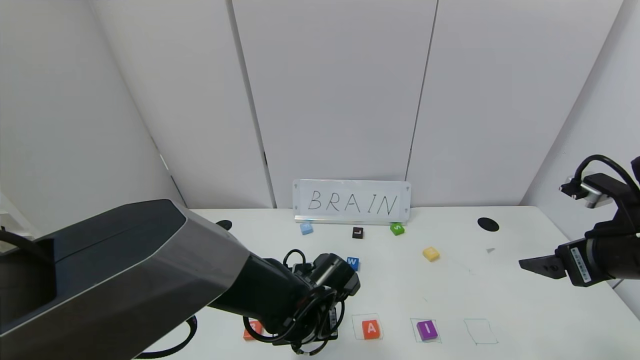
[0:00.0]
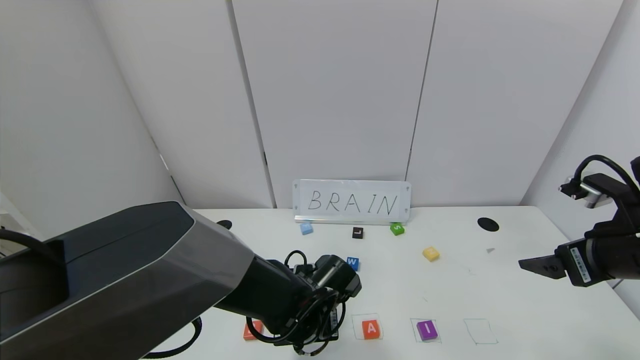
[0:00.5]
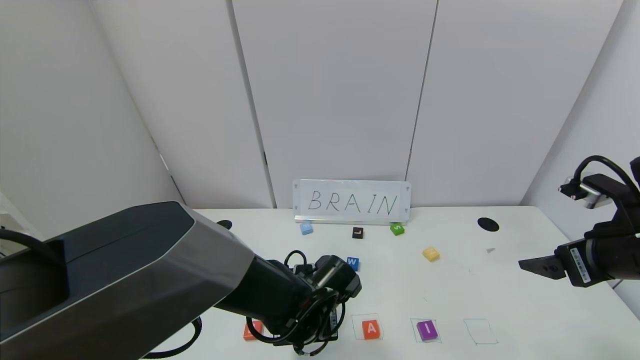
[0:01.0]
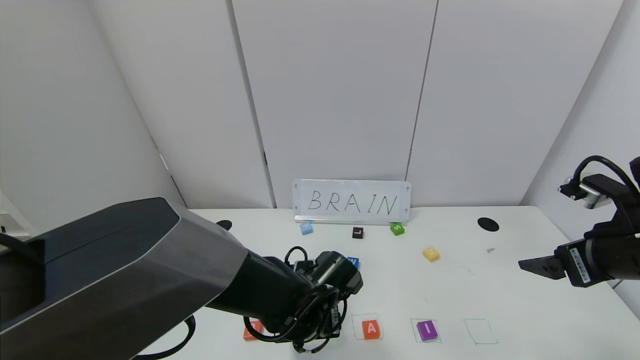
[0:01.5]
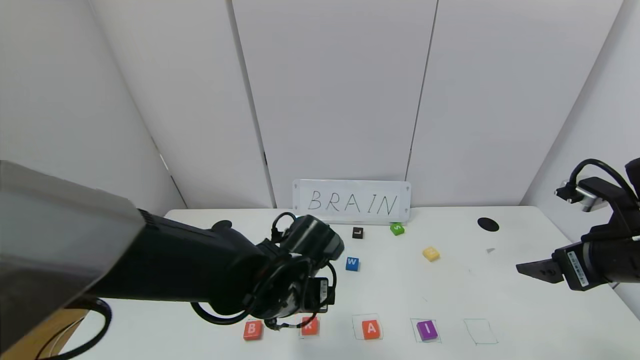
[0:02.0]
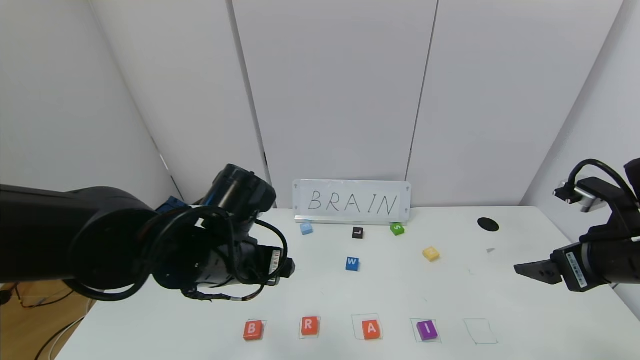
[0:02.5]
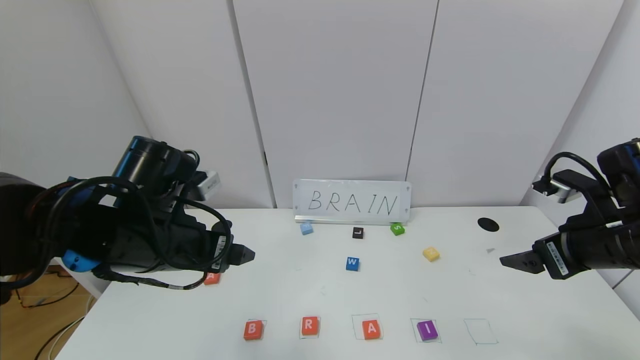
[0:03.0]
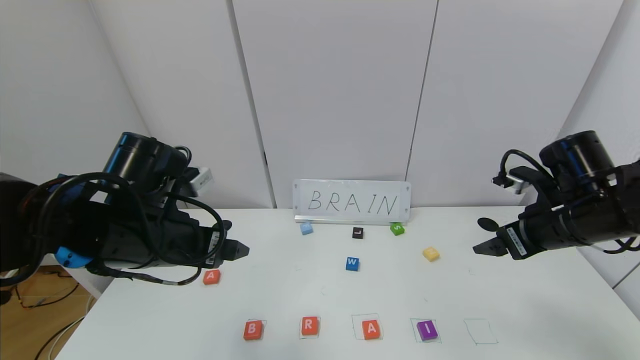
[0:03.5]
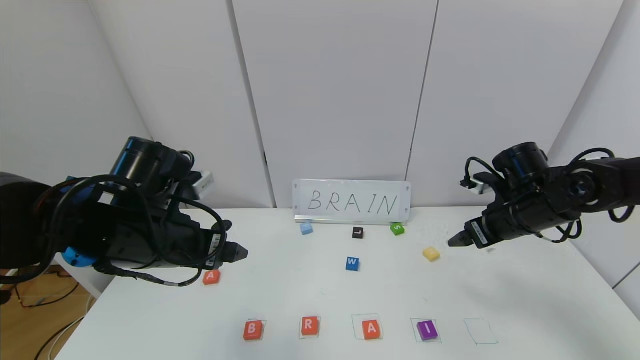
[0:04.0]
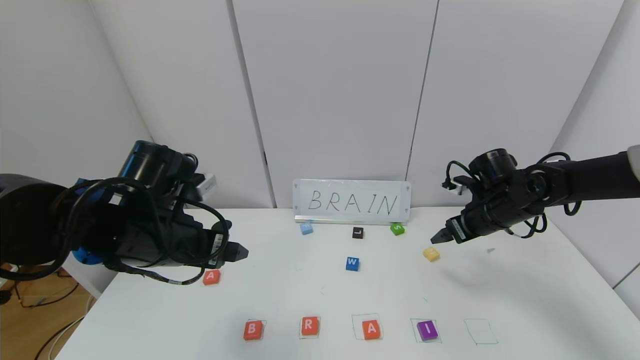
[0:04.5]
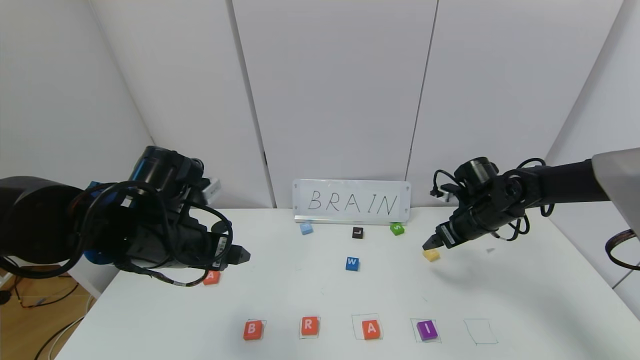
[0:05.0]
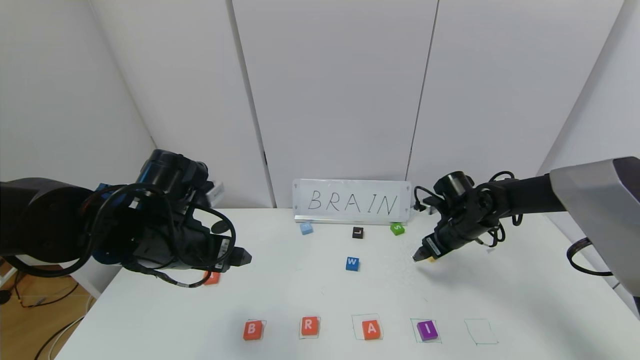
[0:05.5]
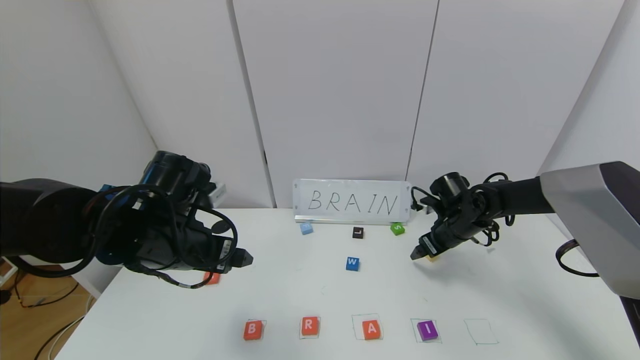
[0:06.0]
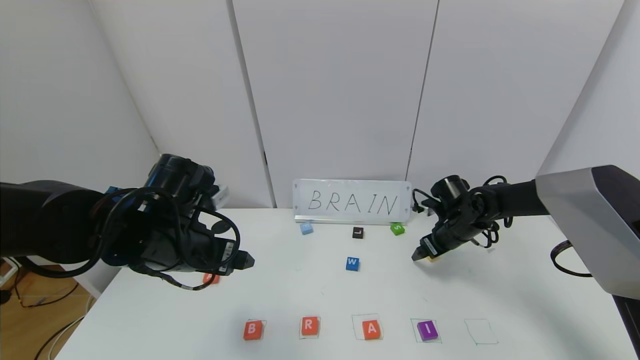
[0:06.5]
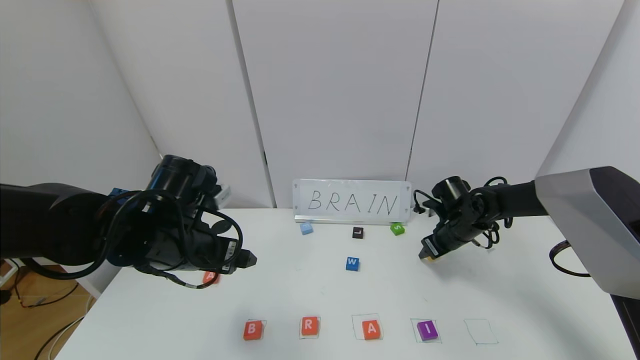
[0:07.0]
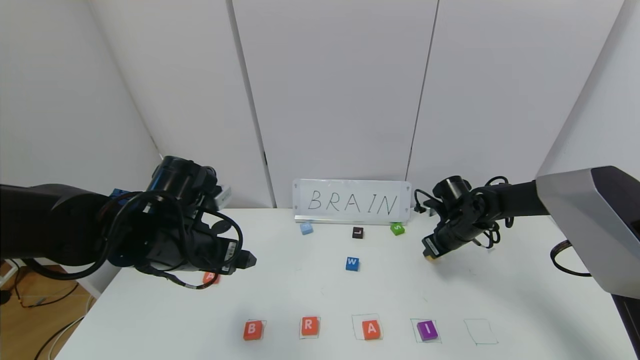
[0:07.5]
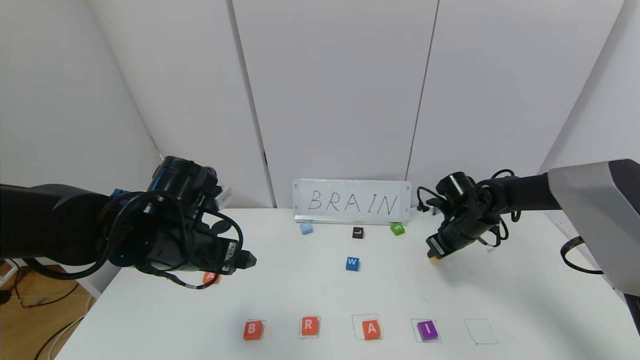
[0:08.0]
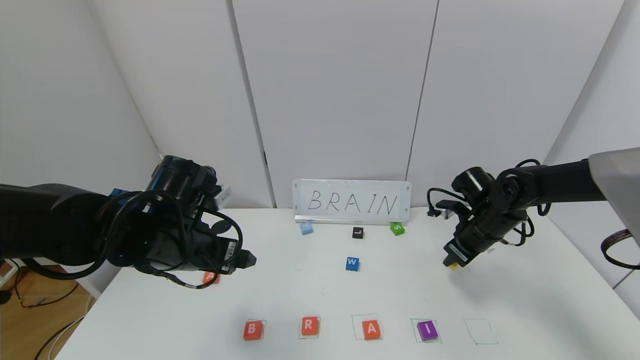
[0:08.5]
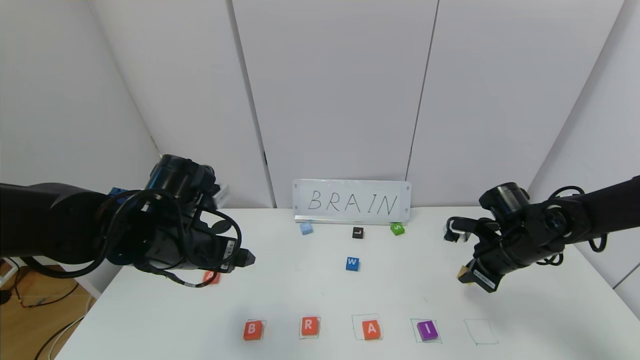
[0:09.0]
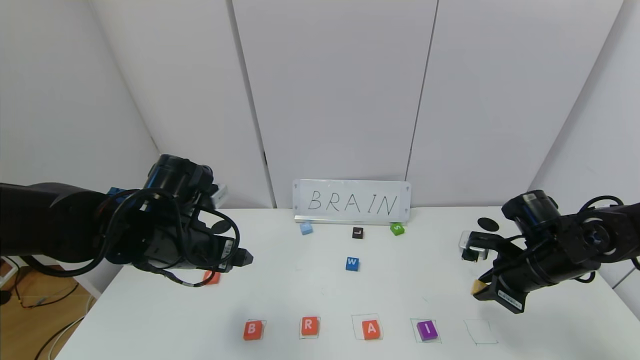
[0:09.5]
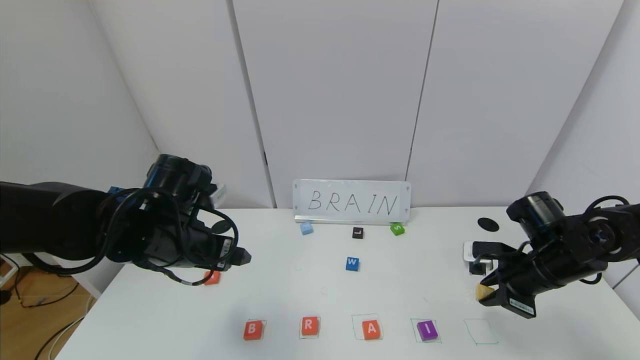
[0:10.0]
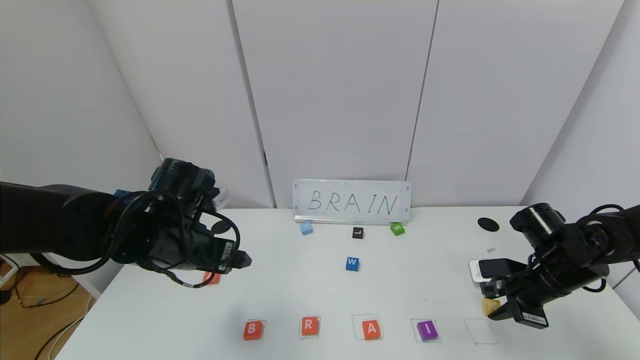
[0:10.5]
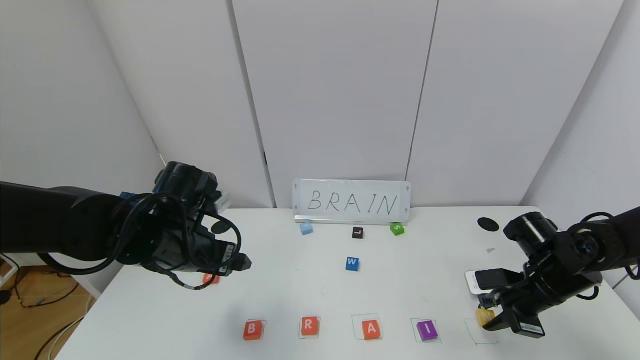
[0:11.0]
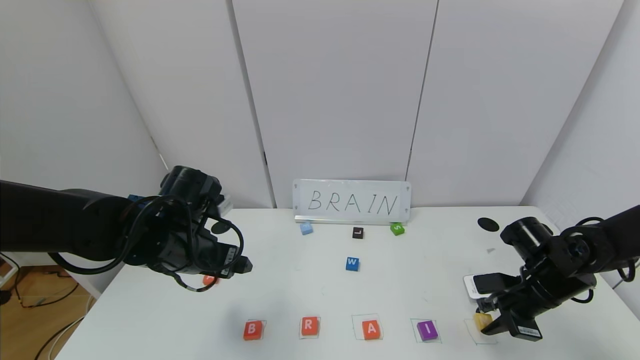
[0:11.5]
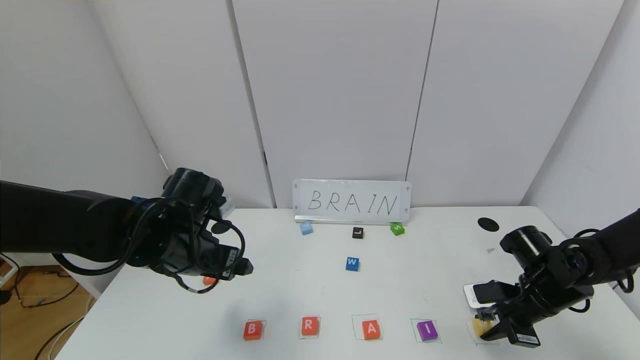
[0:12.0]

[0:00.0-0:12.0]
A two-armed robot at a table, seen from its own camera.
Task of the whole recording: use the gripper to find blocks with the letters b, a, a, and i on the table and arrange them into BAAI, then find r and N and turn the arranged baai into brian.
0:00.0 to 0:02.0: The left gripper moves upward, approximately 5 cm, and opens up.
0:02.0 to 0:04.0: The left gripper shifts roughly 15 cm to the left and upward. The right gripper goes roughly 15 cm forward.
0:04.0 to 0:06.0: The right gripper goes some 10 cm downward and forward.
0:06.0 to 0:08.0: The right gripper closes its fingers.
0:08.0 to 0:10.0: The right gripper heads backward and to the right, covering about 15 cm.
0:10.0 to 0:12.0: The right gripper travels downward by approximately 5 cm.

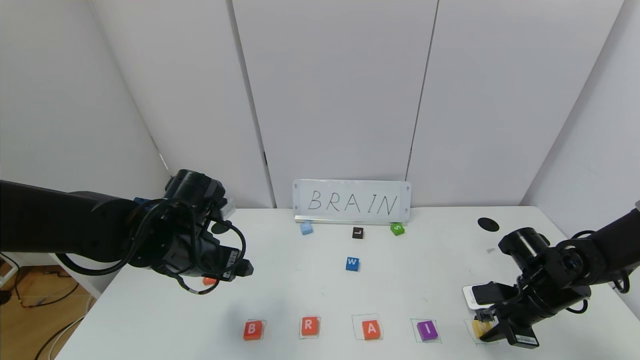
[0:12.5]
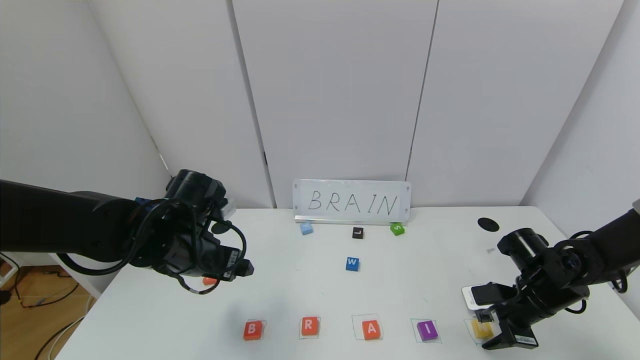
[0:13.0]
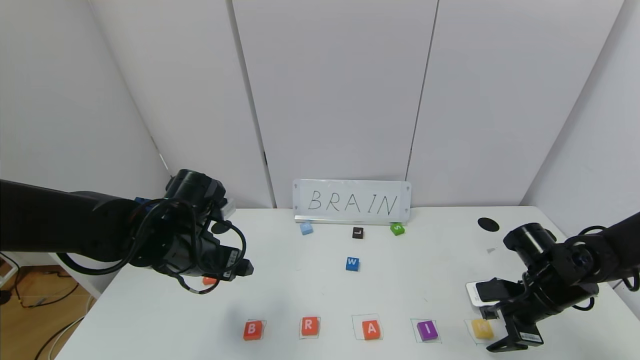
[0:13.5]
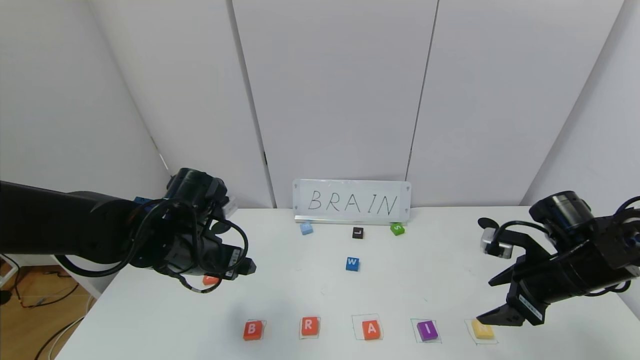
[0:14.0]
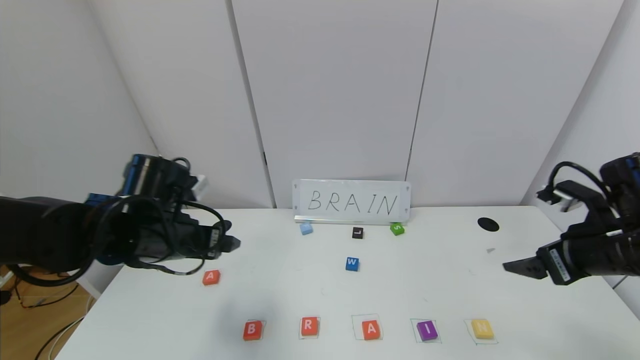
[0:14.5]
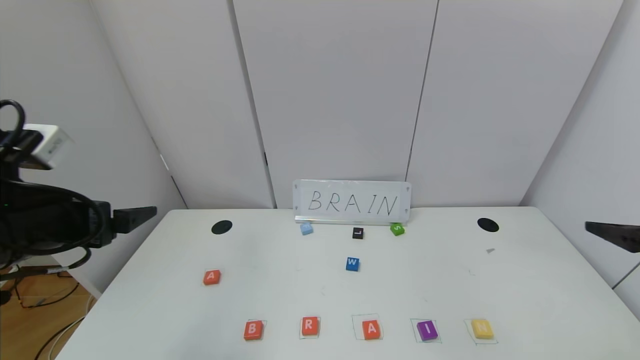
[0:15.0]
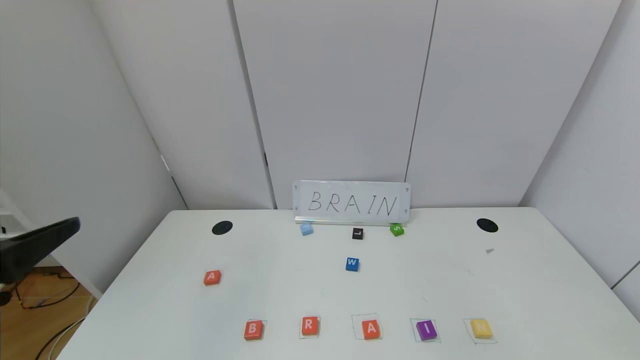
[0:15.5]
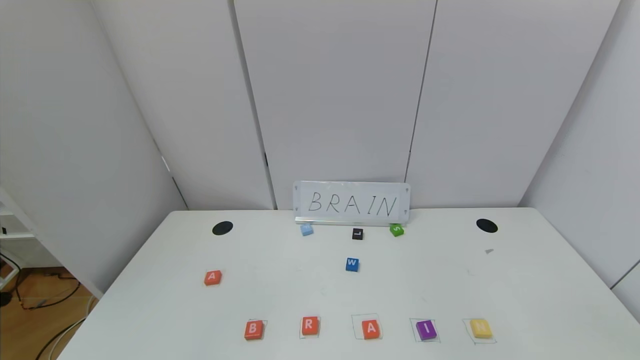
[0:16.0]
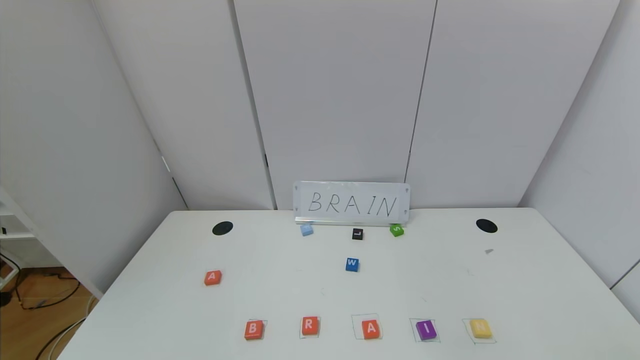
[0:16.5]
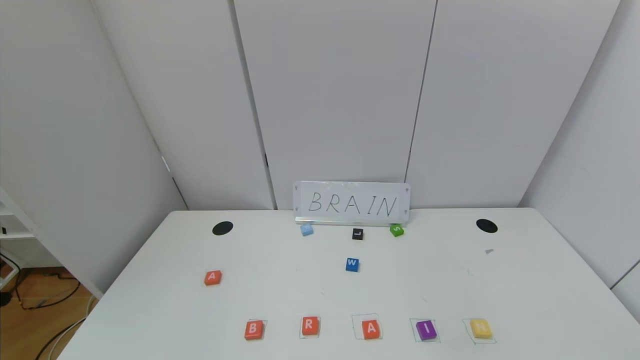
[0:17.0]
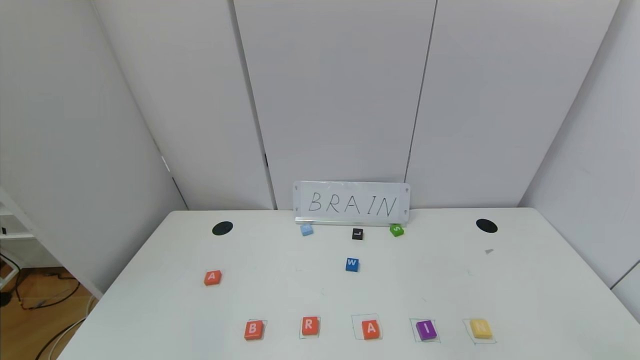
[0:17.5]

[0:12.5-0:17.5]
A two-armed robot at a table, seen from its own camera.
Task of the whole recording: use the gripper to find blocks with the letters b, a, a, and i on the table and arrange them into BAAI, then find r and N and turn the arranged baai into brian.
0:12.5 to 0:15.0: The left gripper moves backward, upward and to the left, some 15 cm, while the right gripper shifts about 25 cm upward and backward, and opens.
0:15.0 to 0:17.5: The right gripper goes some 25 cm backward and downward; the left gripper is displaced backward by roughly 25 cm.
